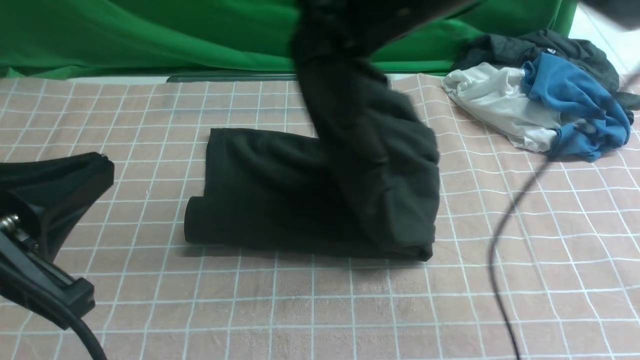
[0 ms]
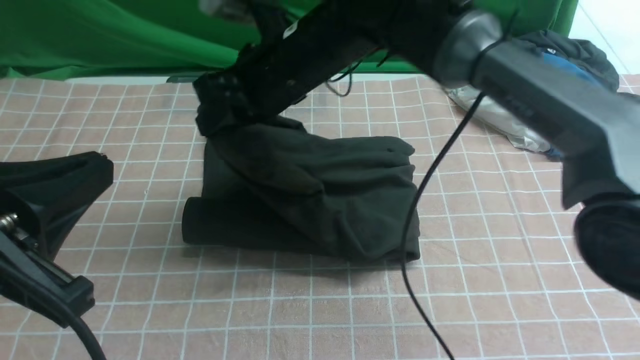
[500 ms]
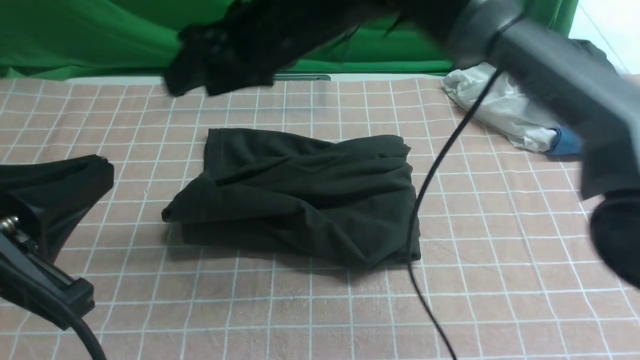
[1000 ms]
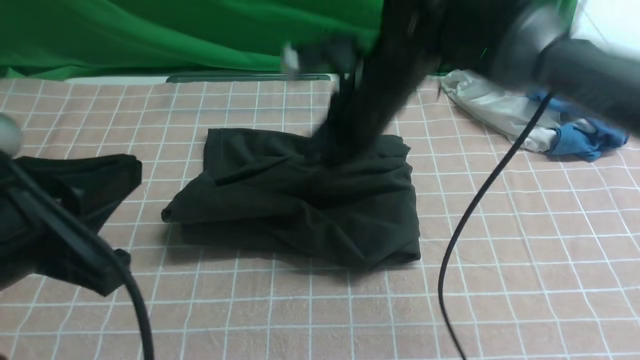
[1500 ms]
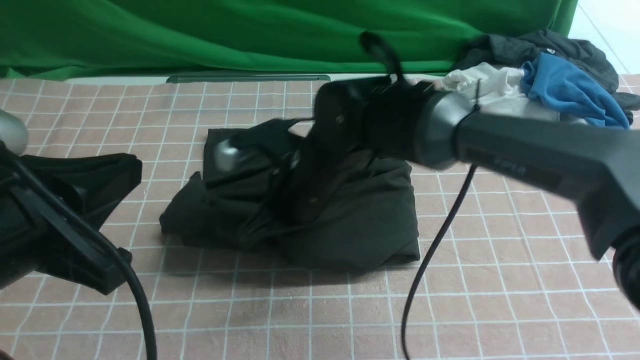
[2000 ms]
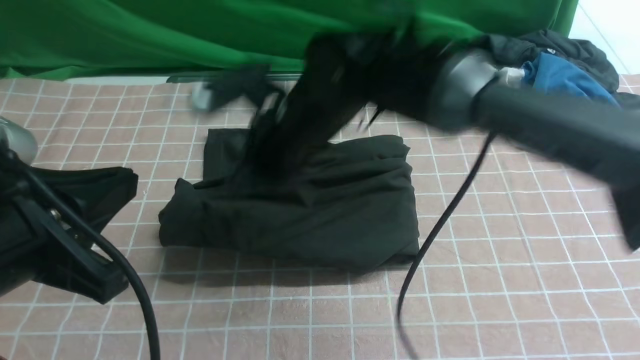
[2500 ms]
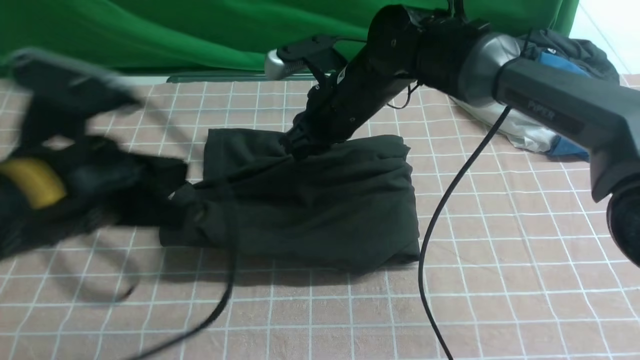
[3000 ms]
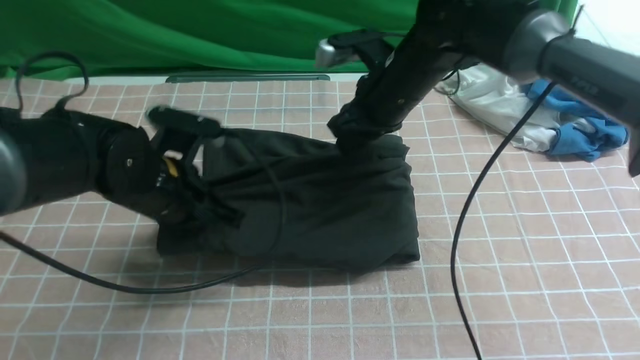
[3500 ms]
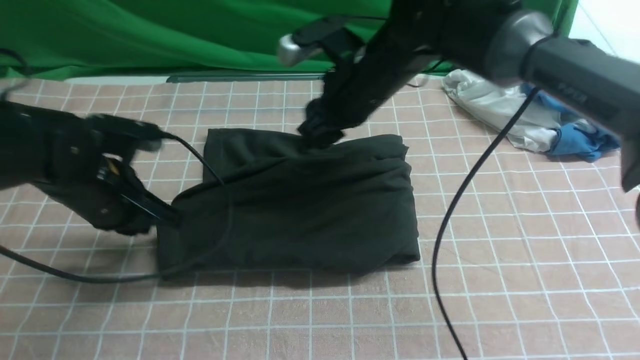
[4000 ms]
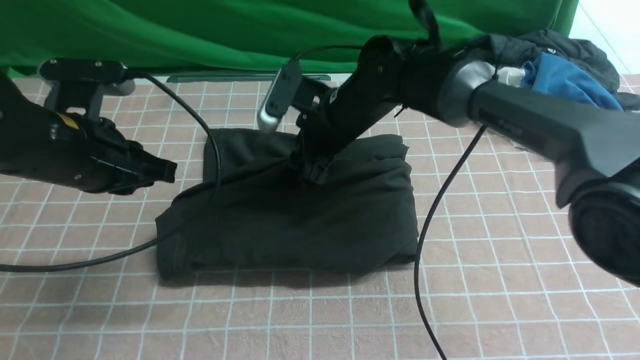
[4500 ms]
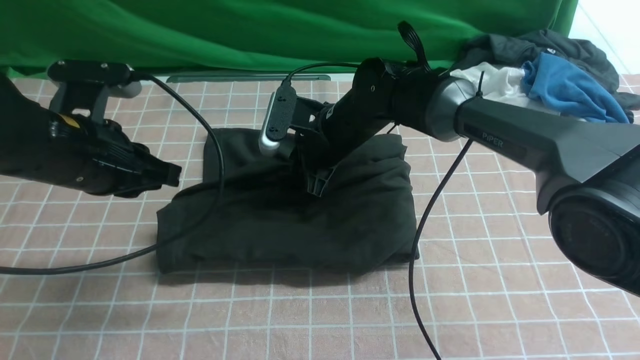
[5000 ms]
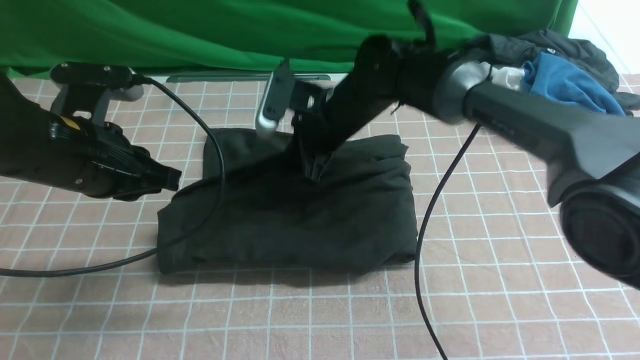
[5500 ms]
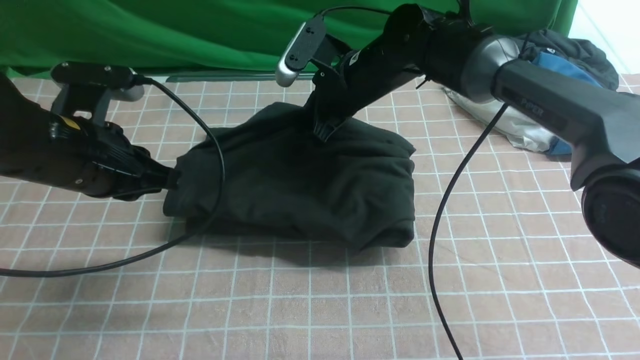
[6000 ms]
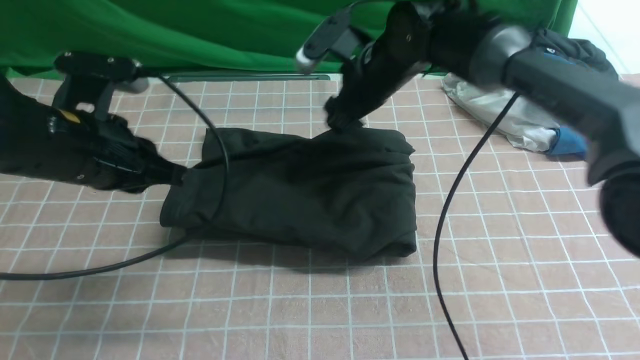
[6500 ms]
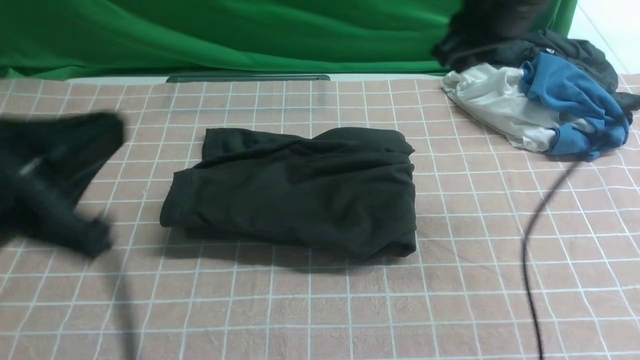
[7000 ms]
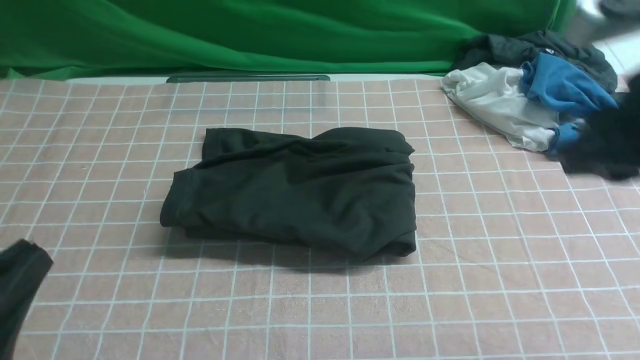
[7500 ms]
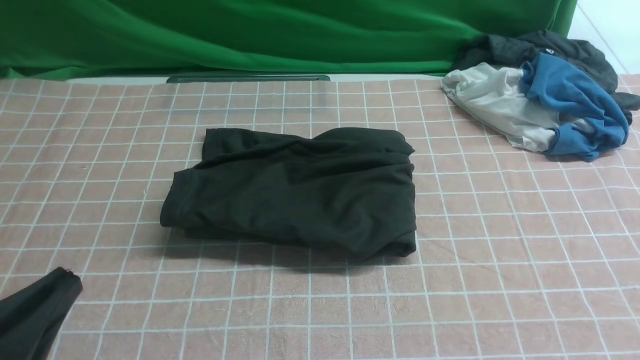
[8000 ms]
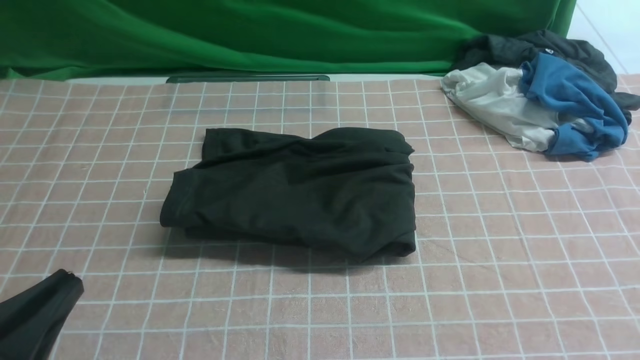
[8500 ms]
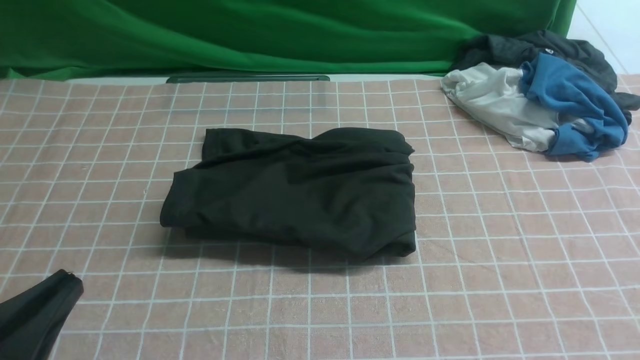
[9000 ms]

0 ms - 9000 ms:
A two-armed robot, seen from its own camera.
0 ms - 2000 ms: The right gripper moves up and down over roughly 15 cm, changing direction 2 times, and opens and closes again.
2000 ms - 4500 ms: The right gripper goes approximately 10 cm forward, and opens. Meanwhile the left gripper shifts roughly 20 cm forward and downward.
4500 ms - 7000 ms: The right gripper goes some 25 cm upward and to the right, and closes its fingers; the left gripper goes approximately 20 cm backward and upward.
7000 ms - 9000 ms: The left gripper goes some 10 cm downward and backward. The right gripper is displaced backward, downward and to the right by approximately 40 cm.

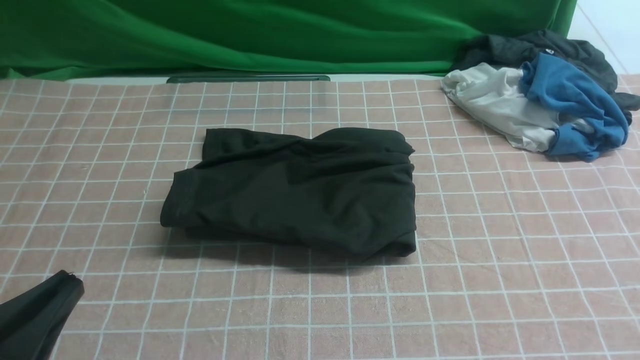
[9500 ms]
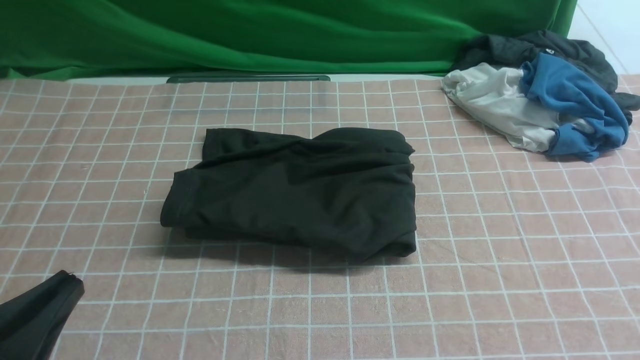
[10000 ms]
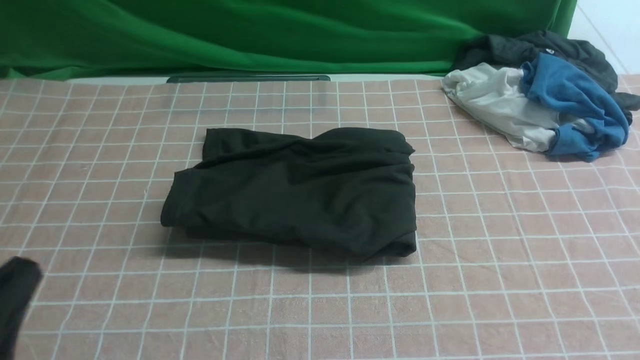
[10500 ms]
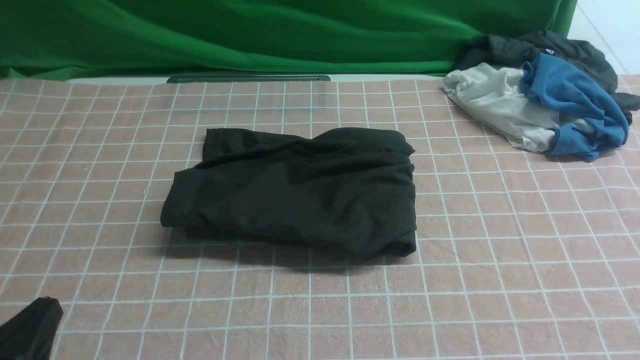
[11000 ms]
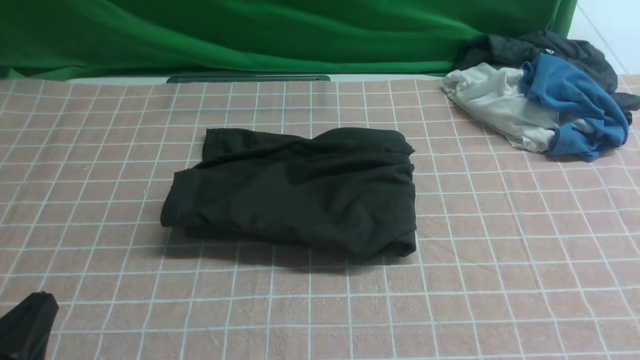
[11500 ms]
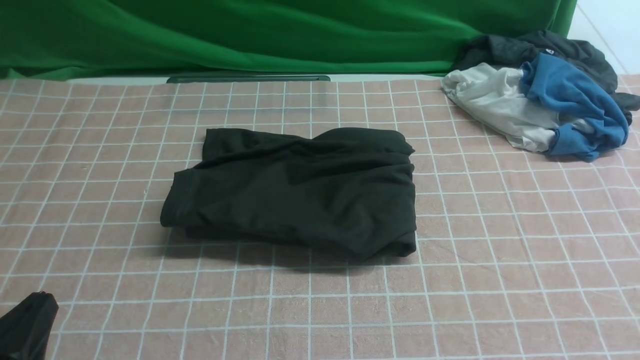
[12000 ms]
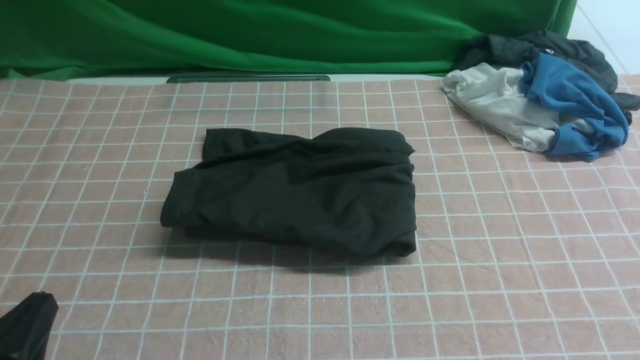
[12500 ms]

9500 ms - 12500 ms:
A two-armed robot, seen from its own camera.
9500 ms - 11000 ms: The left gripper is displaced downward by some 5 cm.
11000 ms - 12500 ms: Both grippers stay put.
